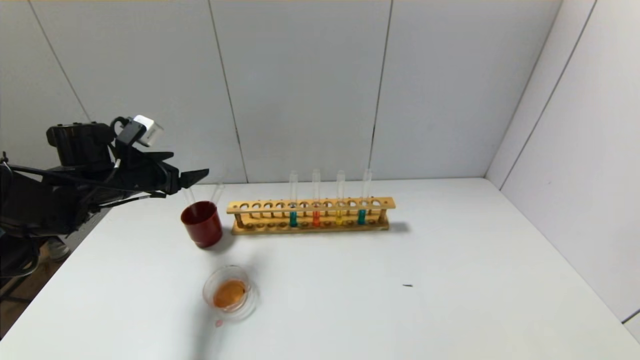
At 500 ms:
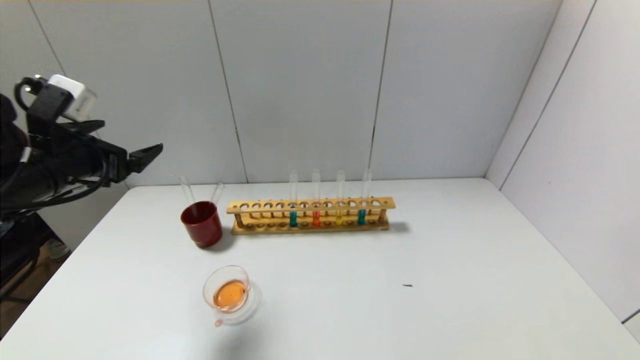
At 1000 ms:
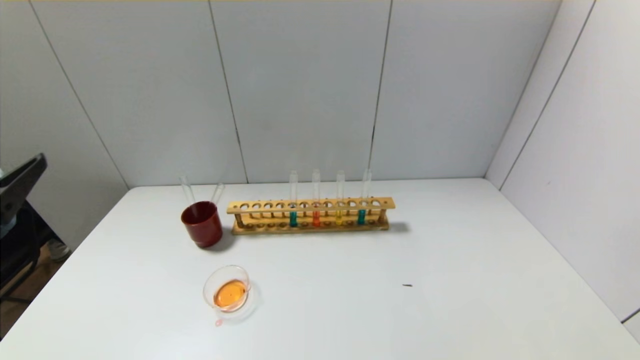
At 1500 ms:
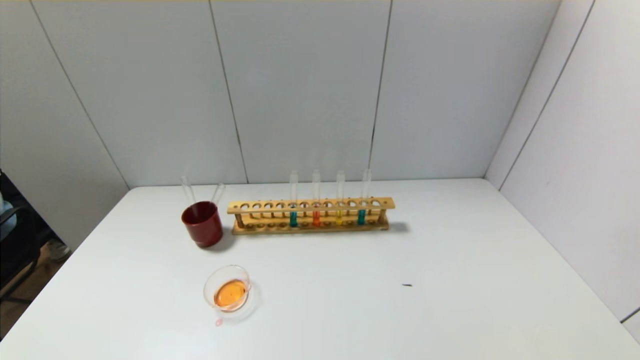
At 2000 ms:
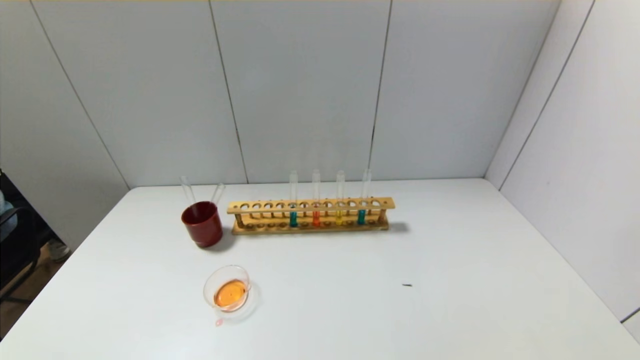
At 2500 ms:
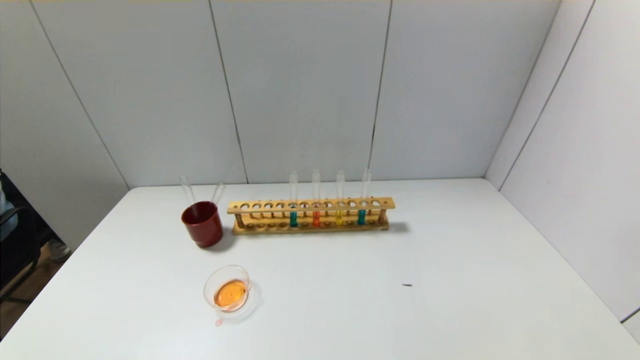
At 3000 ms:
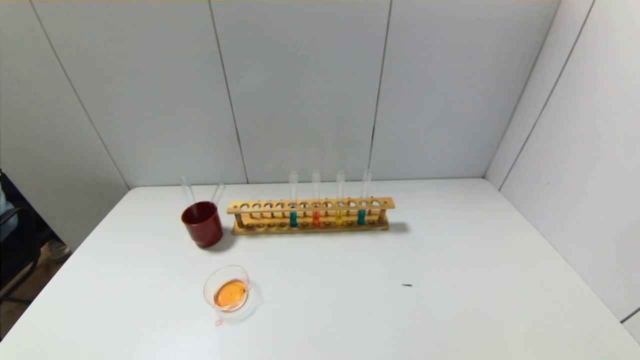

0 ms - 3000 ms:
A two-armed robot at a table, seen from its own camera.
0 ms - 1500 ms: The left gripper goes approximately 40 cm backward.

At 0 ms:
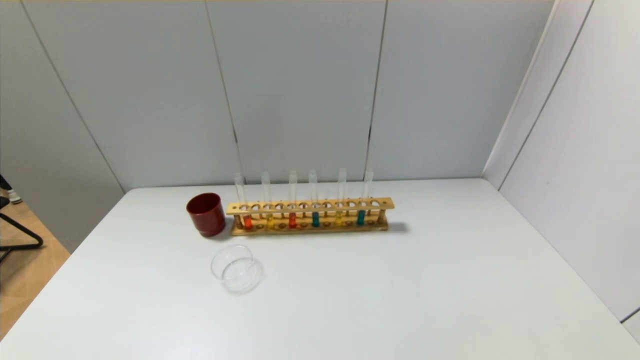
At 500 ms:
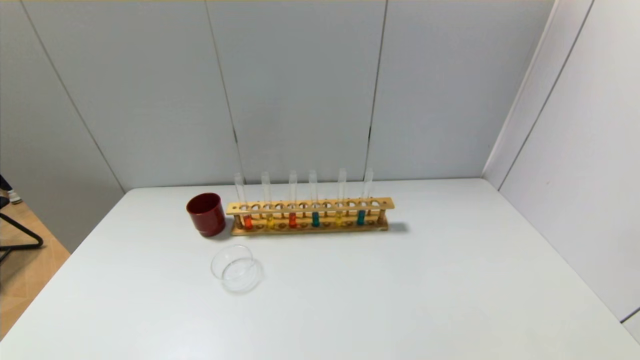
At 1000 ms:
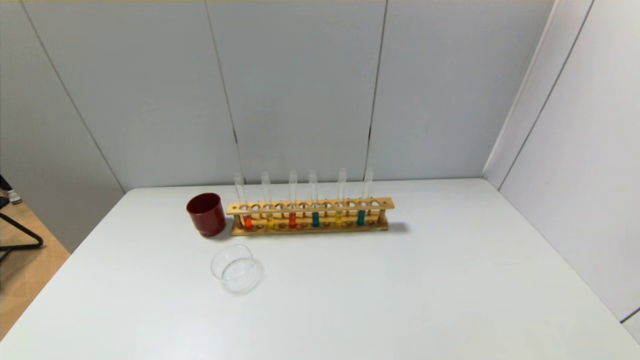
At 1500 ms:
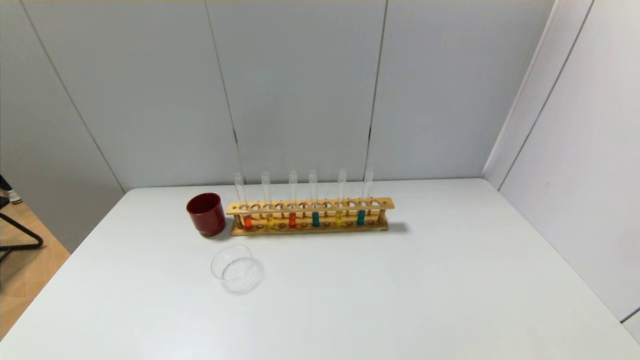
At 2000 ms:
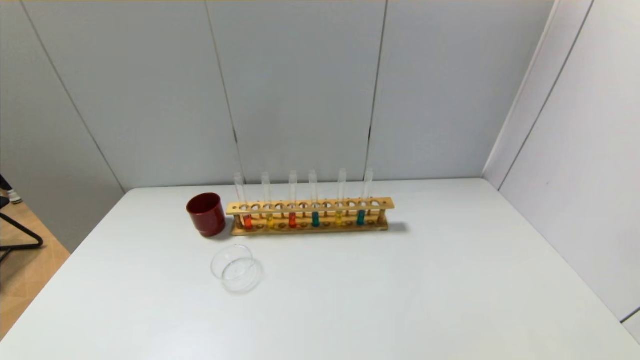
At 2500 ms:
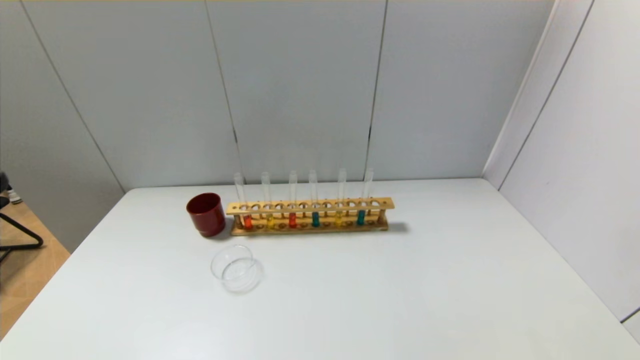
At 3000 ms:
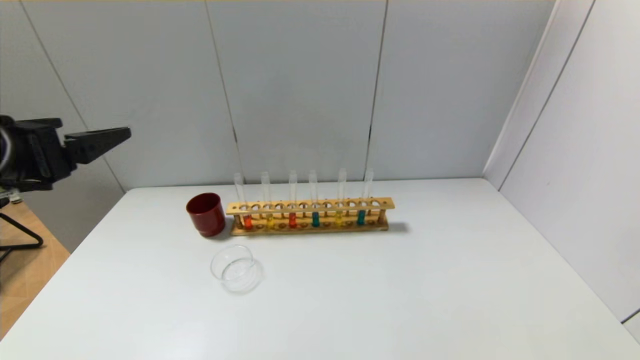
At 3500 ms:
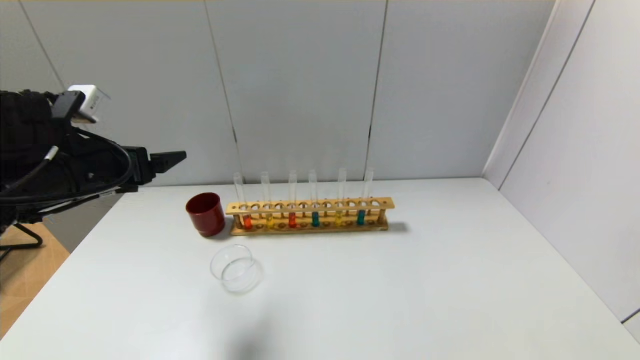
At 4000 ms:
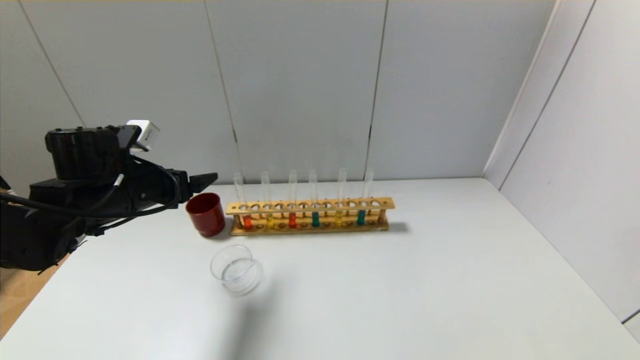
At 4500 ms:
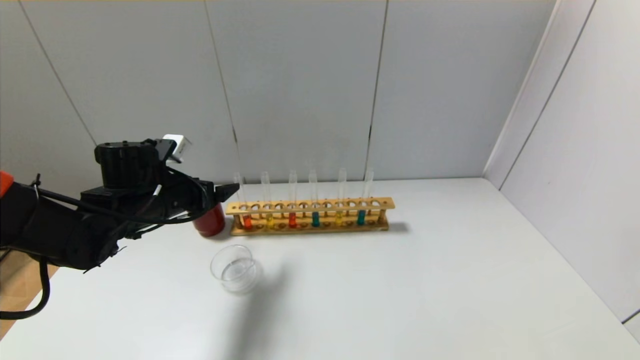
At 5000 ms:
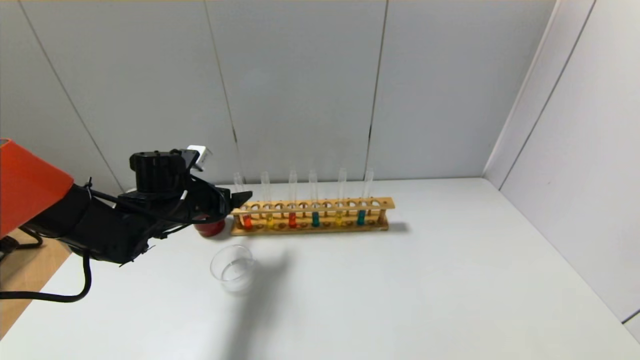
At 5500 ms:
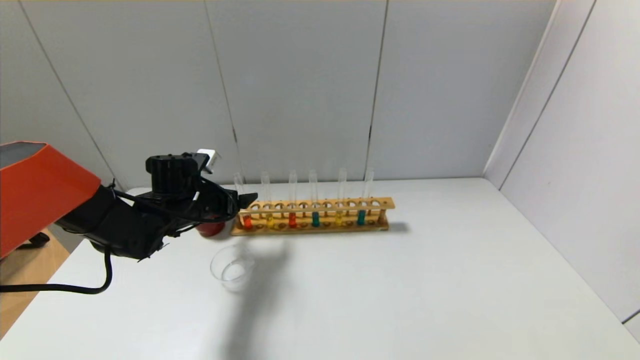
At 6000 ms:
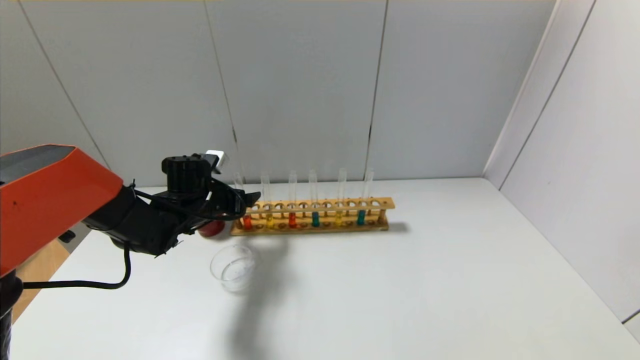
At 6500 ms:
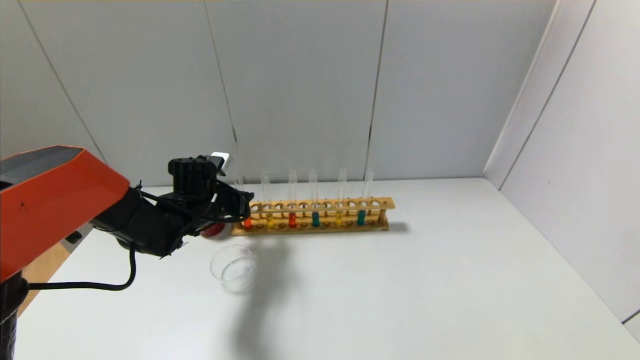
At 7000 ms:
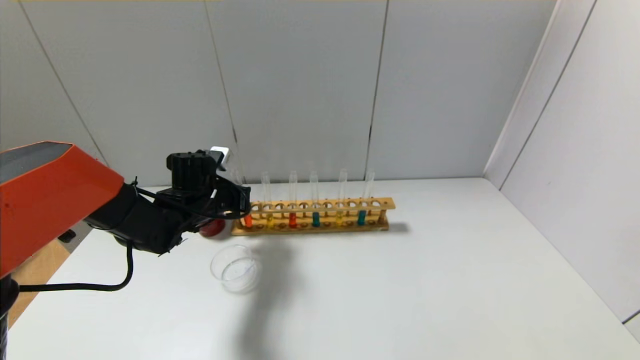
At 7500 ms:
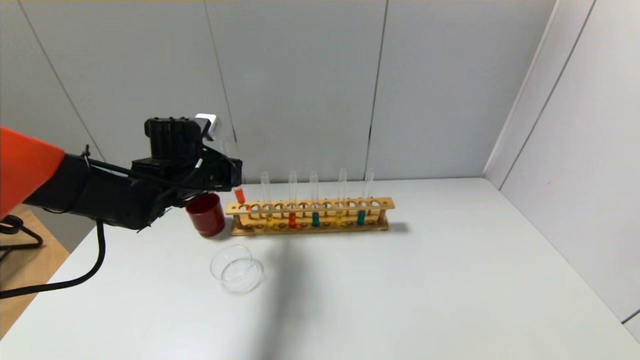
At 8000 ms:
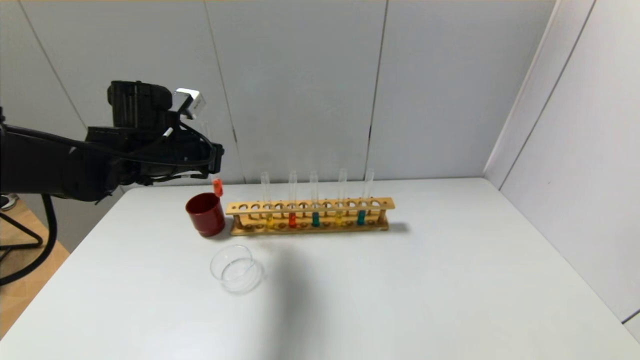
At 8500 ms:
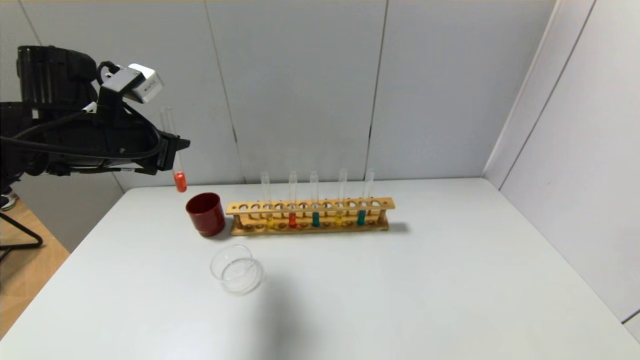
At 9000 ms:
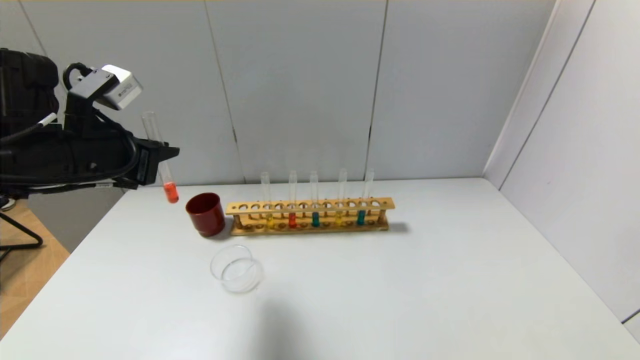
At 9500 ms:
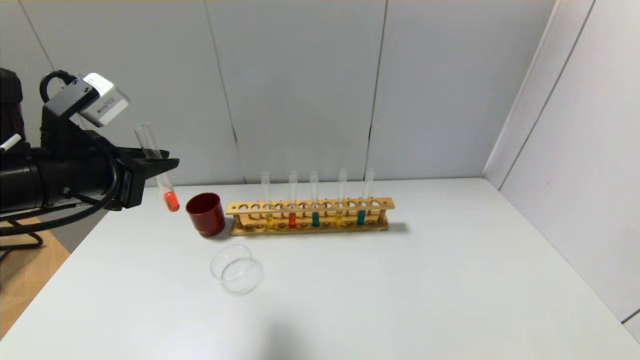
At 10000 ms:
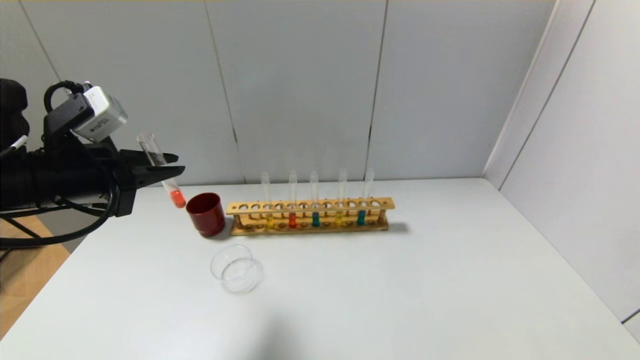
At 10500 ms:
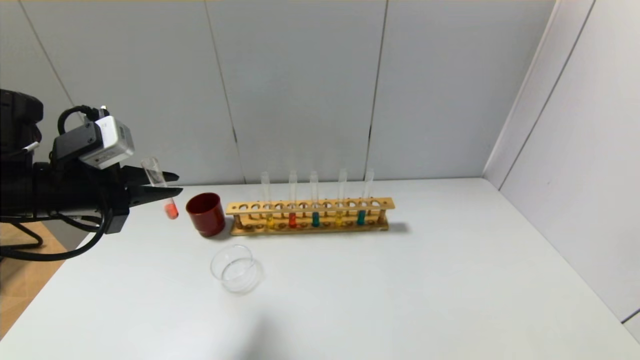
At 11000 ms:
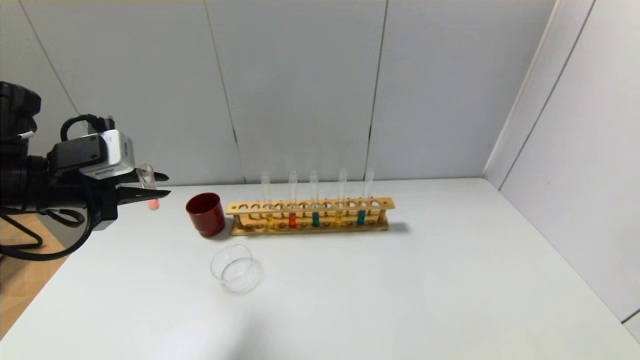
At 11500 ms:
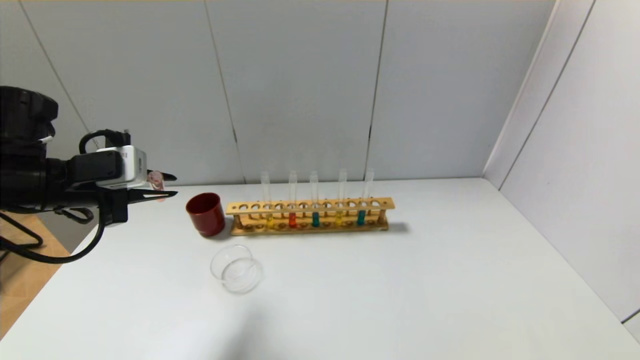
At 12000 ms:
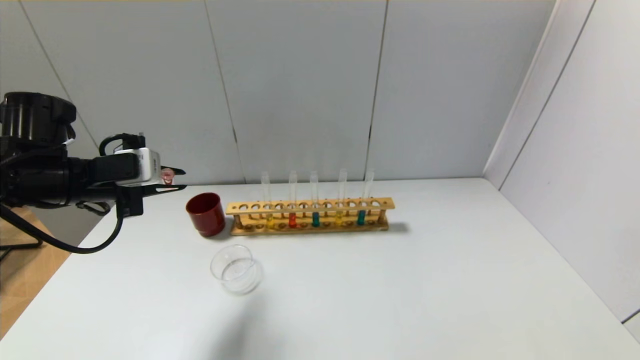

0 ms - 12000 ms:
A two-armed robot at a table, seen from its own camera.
Step, 0 ms - 6500 ms: Grasp the red reagent with the left gripper.
2000 ms - 4000 ms: The left gripper heads forward, covering about 35 cm.
4000 ms - 6000 ms: The left gripper is displaced forward, downward and to the right by about 15 cm.
6000 ms - 8000 ms: The left gripper is displaced upward by some 15 cm, and closes up.
8000 ms - 10000 ms: The left gripper travels backward and to the left by roughly 10 cm.
10000 ms - 12000 ms: The left gripper ends up some 5 cm from where it was.

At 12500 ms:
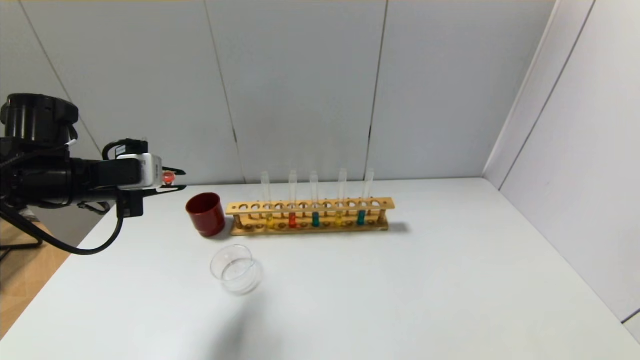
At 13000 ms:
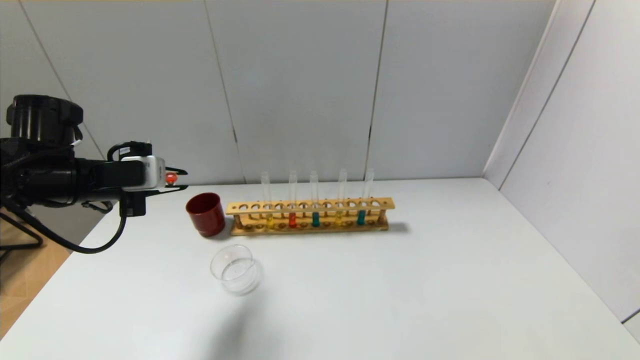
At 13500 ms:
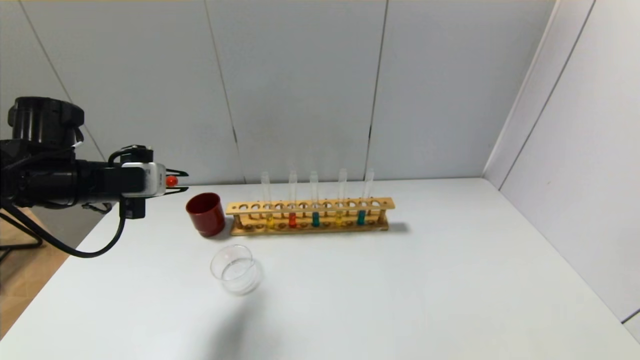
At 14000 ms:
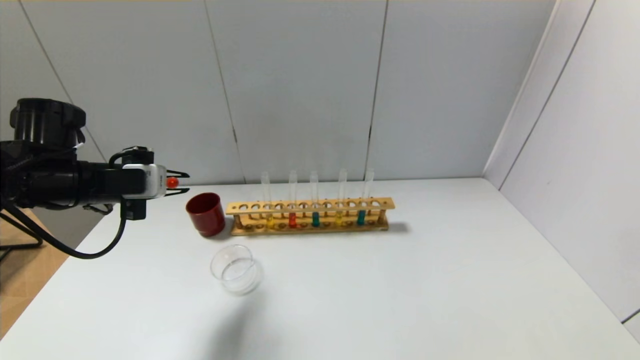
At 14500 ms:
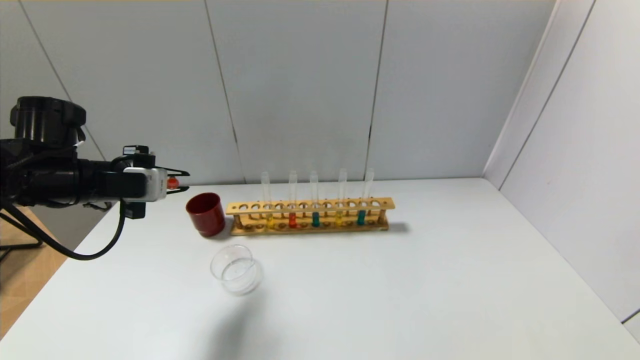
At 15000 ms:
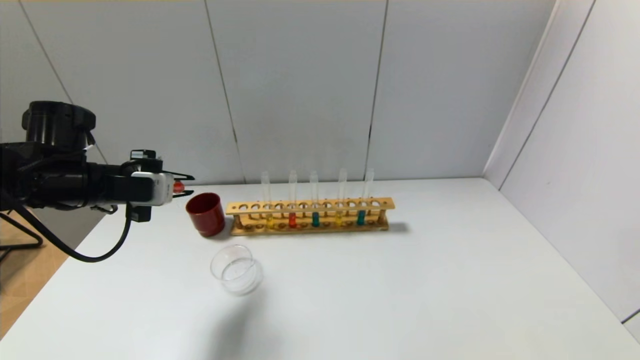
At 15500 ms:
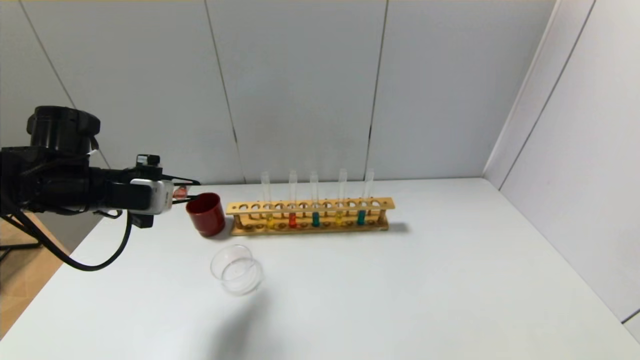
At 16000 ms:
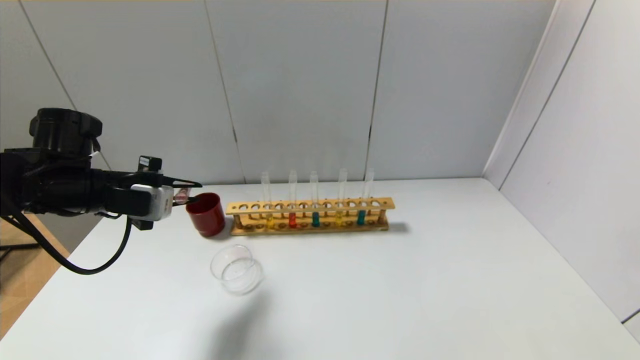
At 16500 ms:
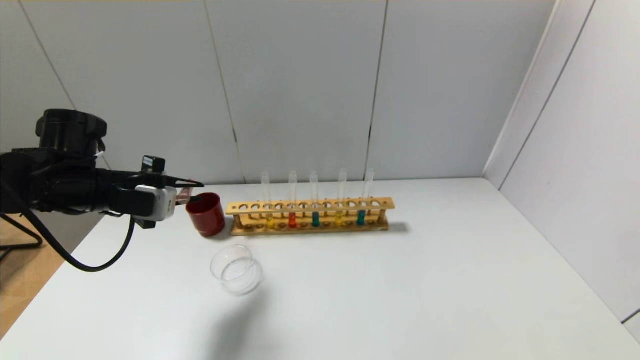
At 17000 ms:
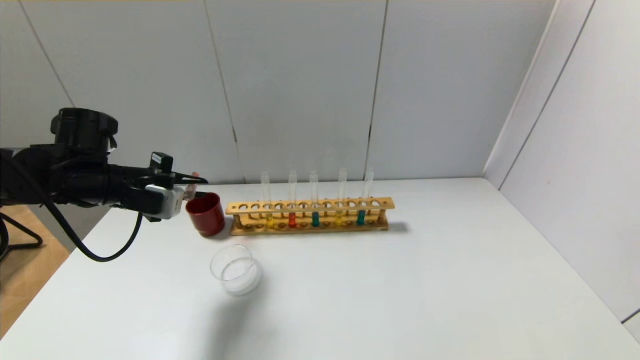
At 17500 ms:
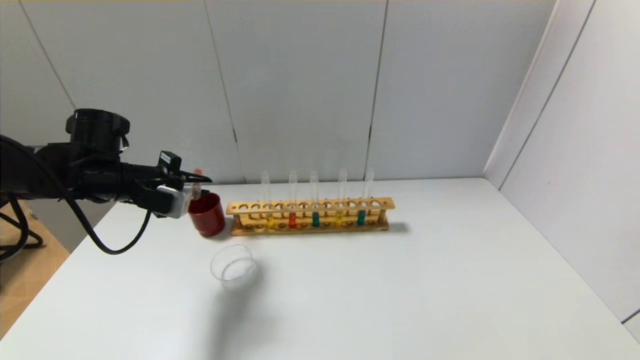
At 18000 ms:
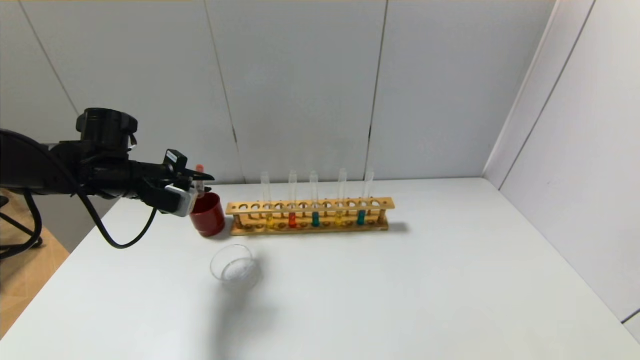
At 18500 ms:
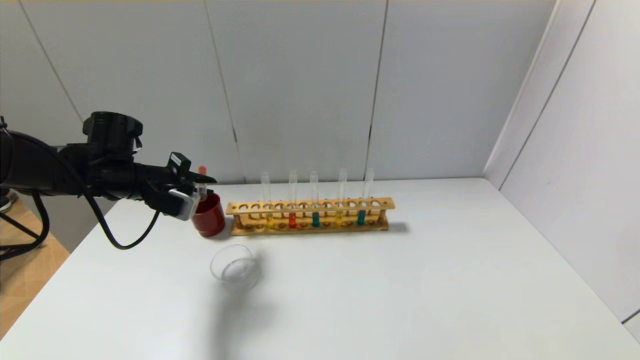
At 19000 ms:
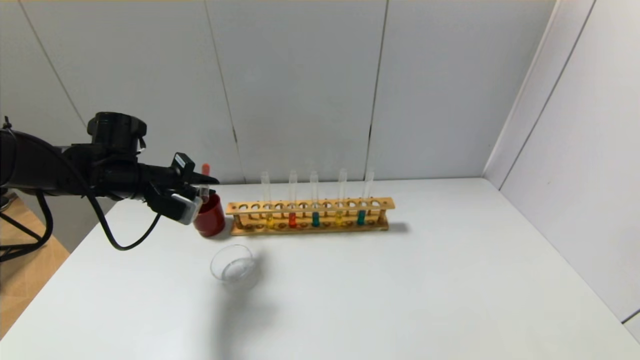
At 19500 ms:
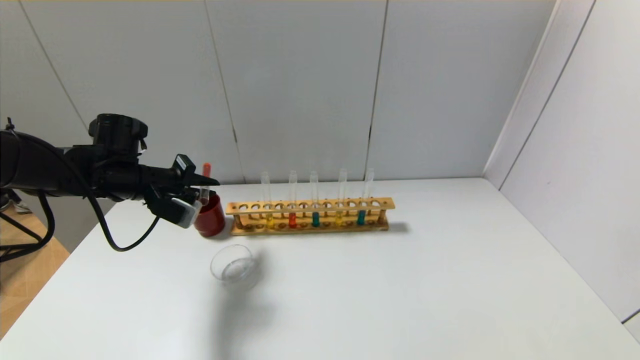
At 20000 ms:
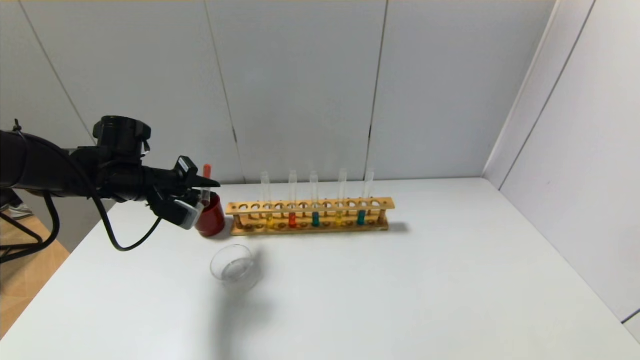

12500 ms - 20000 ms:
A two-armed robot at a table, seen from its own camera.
12500 ms - 16500 ms: There are only small adjustments of the grippers.
16500 ms - 18000 ms: The left gripper moves forward, approximately 5 cm.
18000 ms - 20000 ms: There are only small adjustments of the grippers.
